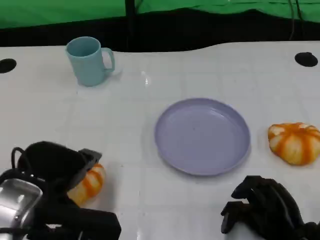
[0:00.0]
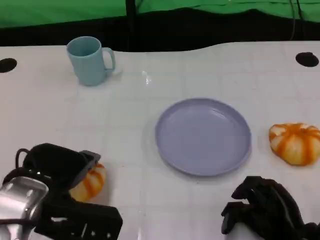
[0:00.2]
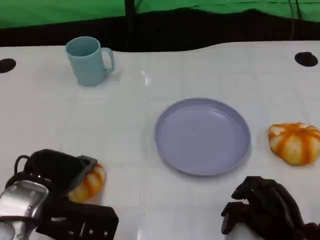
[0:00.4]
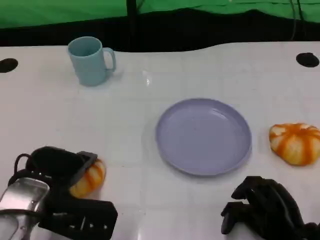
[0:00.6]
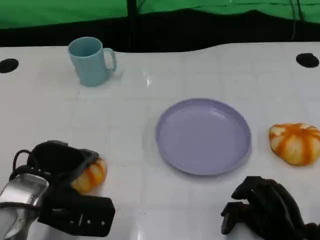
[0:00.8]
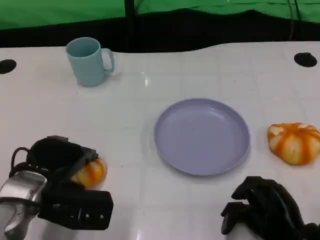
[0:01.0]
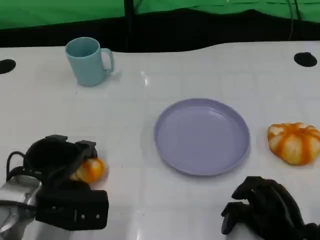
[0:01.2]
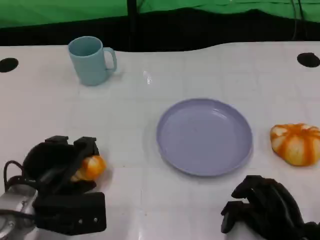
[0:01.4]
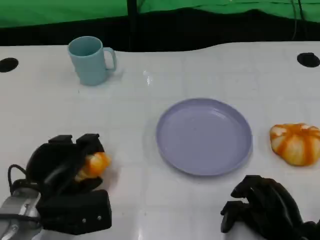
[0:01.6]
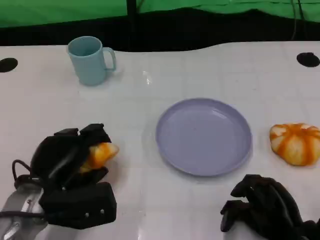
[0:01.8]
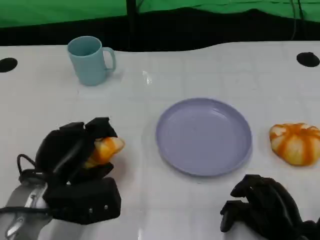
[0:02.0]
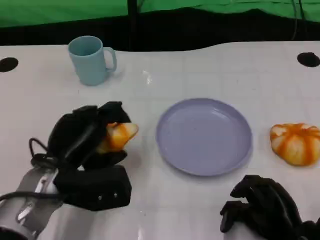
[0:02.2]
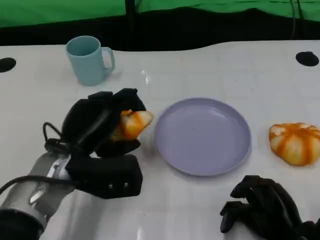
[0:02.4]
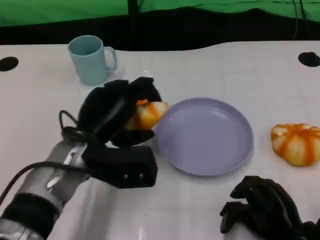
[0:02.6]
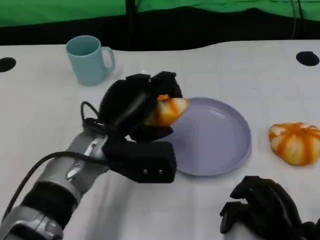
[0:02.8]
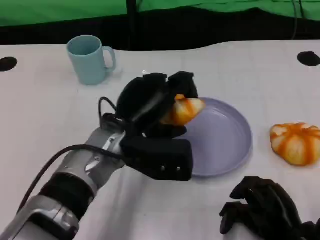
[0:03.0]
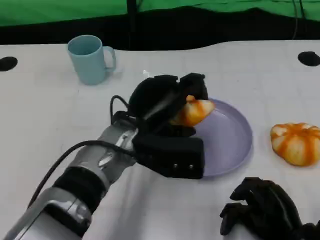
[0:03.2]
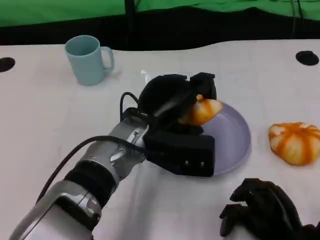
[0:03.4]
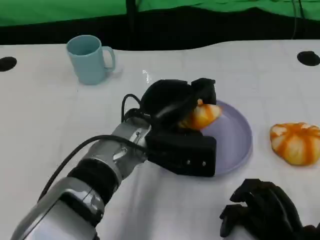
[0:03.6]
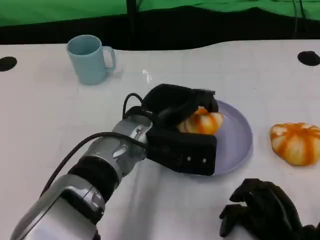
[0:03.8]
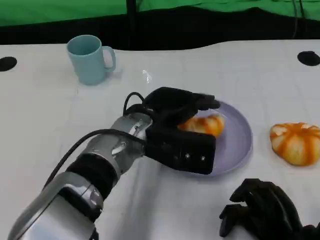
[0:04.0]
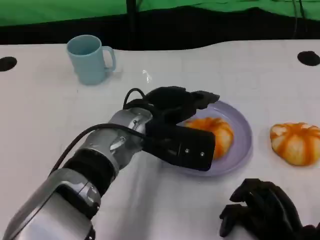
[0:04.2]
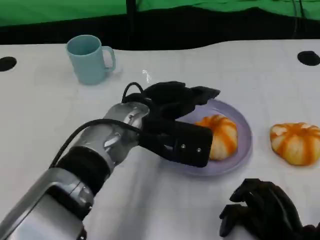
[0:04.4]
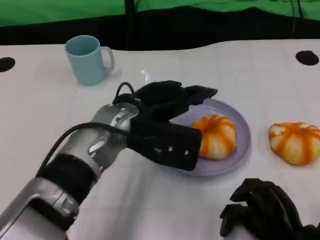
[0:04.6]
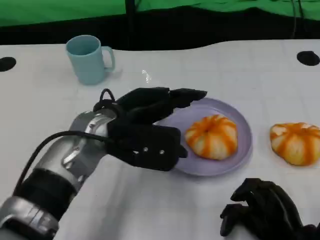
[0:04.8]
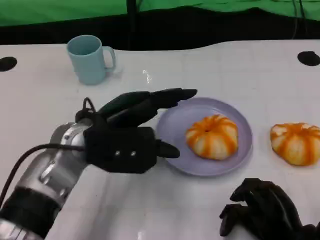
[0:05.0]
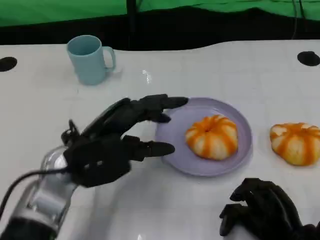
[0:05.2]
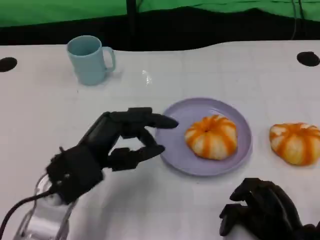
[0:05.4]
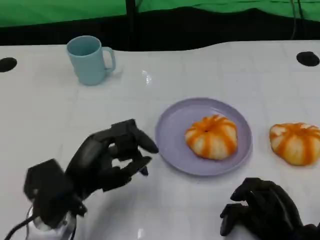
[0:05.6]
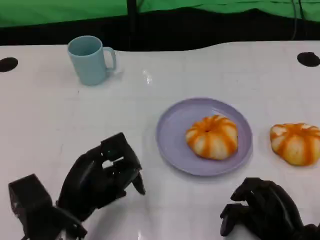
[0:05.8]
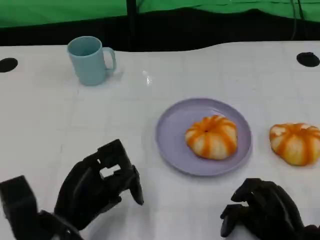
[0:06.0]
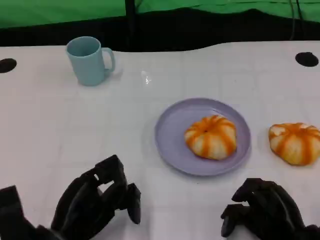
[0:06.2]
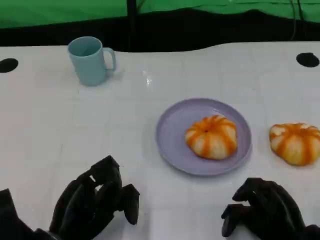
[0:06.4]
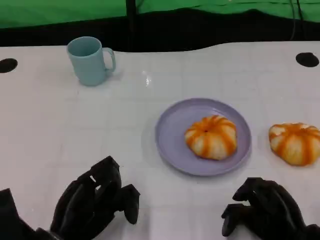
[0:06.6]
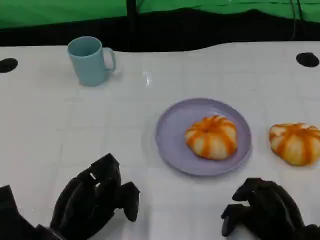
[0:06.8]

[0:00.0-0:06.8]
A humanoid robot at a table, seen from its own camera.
Task of the whole recording: Grasp the bread from the table and place it into the plate.
0:00.0 to 0:01.4: The left hand travels downward by approximately 10 cm.
0:01.4 to 0:02.8: The left hand goes some 15 cm to the right, upward and forward.
0:02.8 to 0:04.0: The left hand is displaced to the right by roughly 5 cm.
0:04.0 to 0:05.4: The left hand is displaced to the left and backward by about 15 cm.
0:05.4 to 0:06.8: The left hand travels downward and backward by roughly 10 cm.

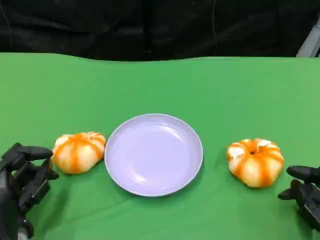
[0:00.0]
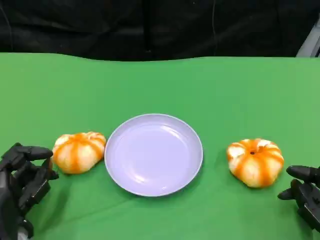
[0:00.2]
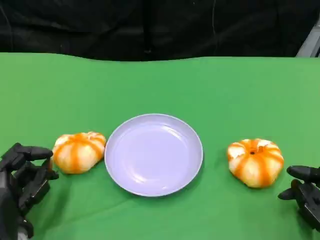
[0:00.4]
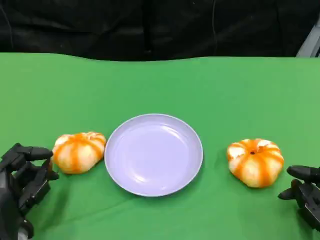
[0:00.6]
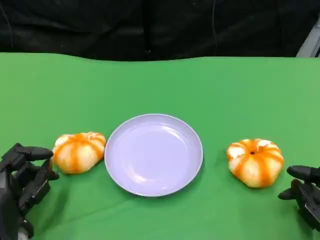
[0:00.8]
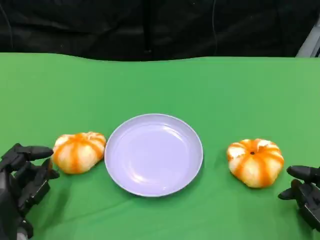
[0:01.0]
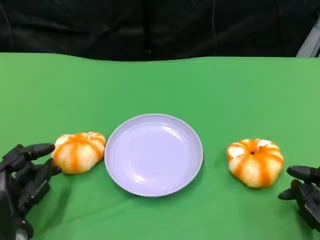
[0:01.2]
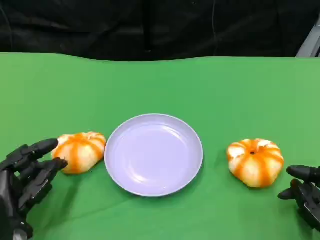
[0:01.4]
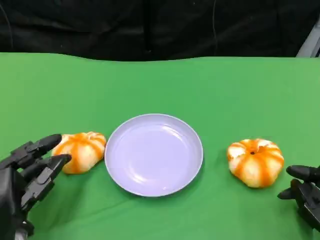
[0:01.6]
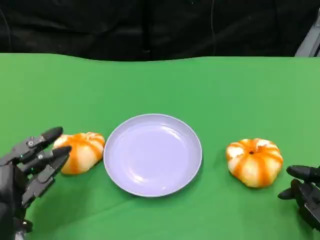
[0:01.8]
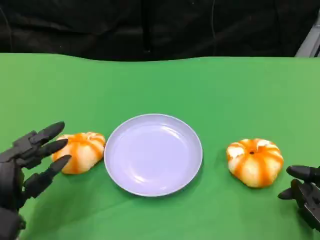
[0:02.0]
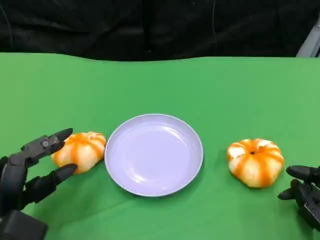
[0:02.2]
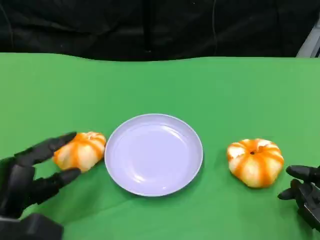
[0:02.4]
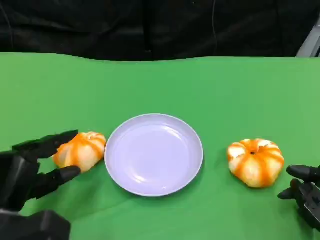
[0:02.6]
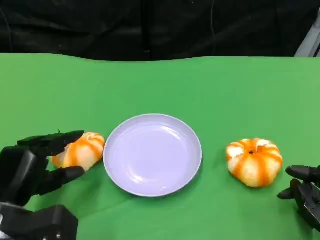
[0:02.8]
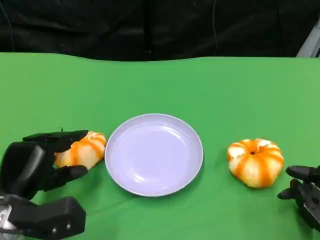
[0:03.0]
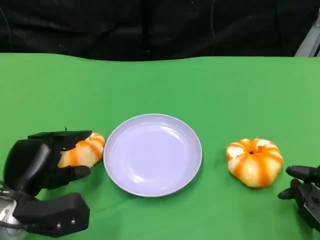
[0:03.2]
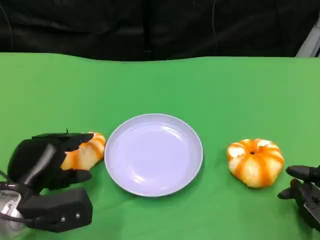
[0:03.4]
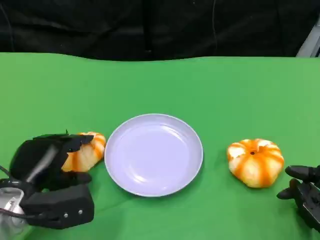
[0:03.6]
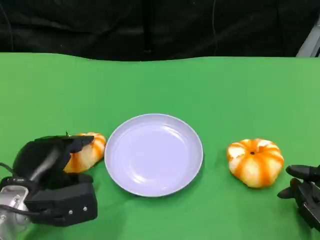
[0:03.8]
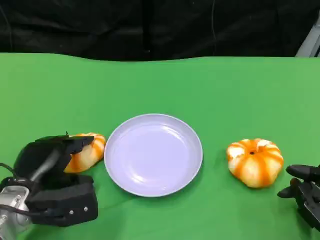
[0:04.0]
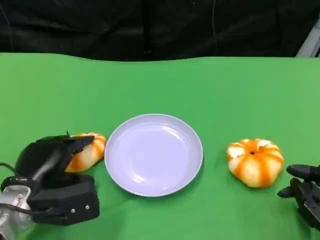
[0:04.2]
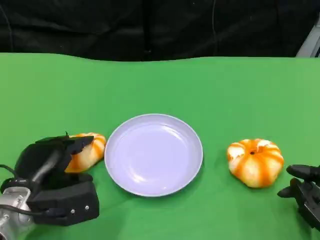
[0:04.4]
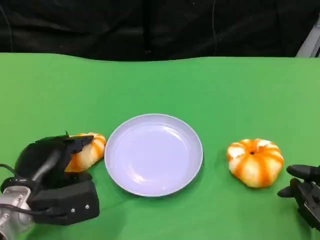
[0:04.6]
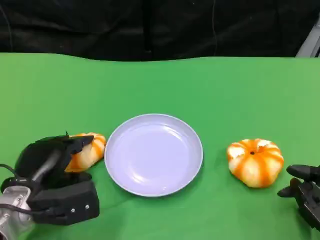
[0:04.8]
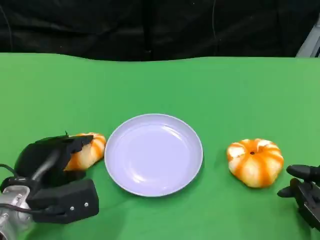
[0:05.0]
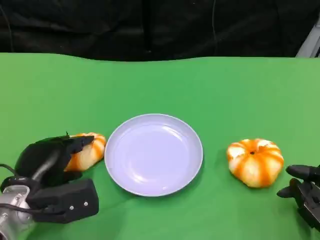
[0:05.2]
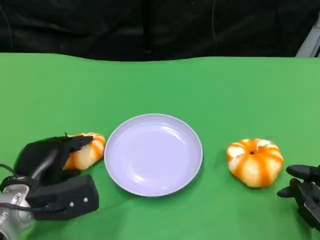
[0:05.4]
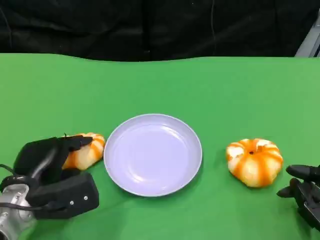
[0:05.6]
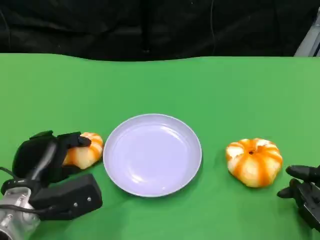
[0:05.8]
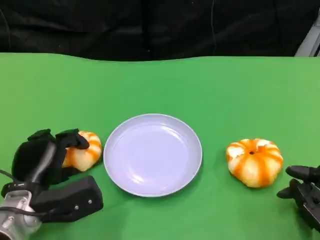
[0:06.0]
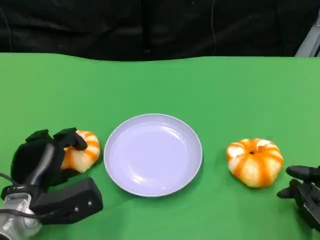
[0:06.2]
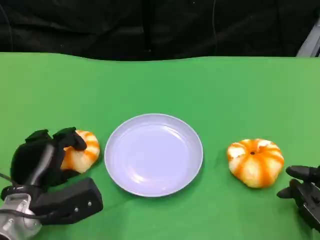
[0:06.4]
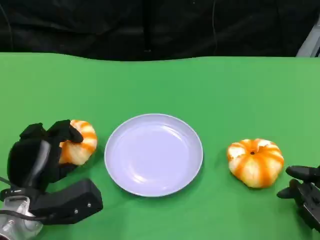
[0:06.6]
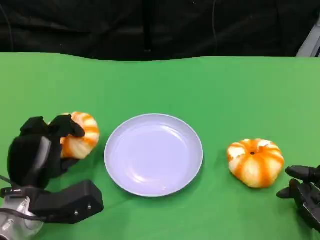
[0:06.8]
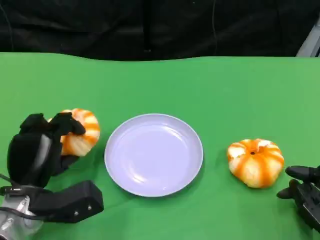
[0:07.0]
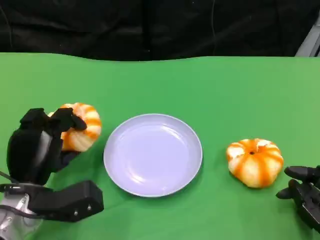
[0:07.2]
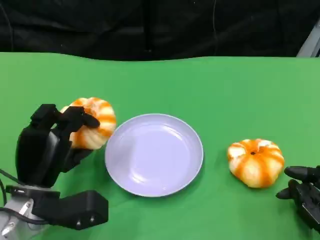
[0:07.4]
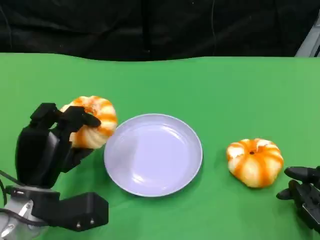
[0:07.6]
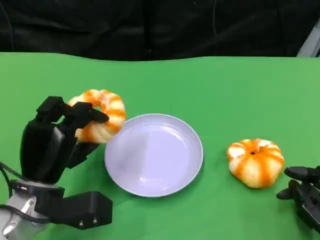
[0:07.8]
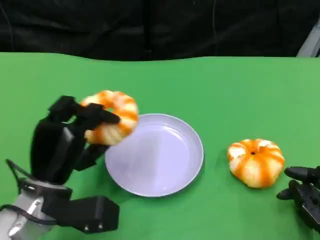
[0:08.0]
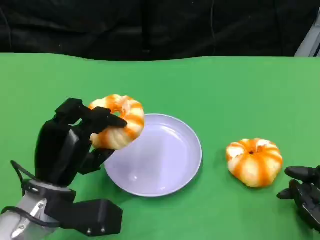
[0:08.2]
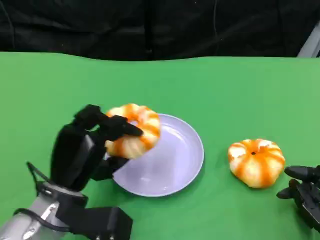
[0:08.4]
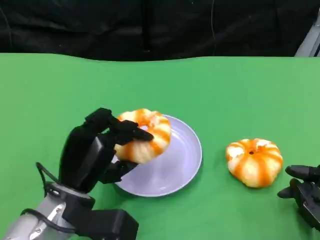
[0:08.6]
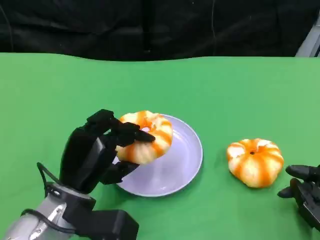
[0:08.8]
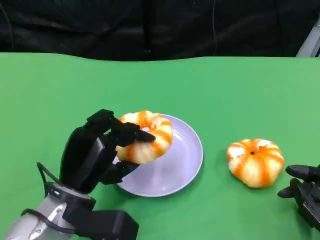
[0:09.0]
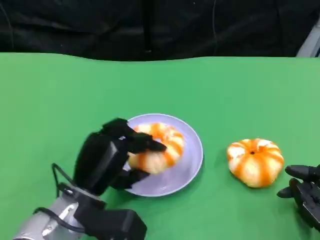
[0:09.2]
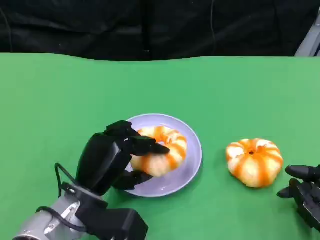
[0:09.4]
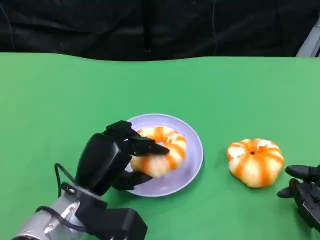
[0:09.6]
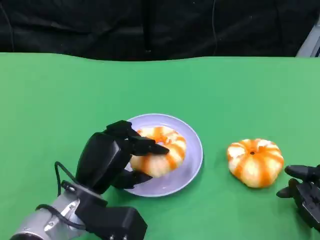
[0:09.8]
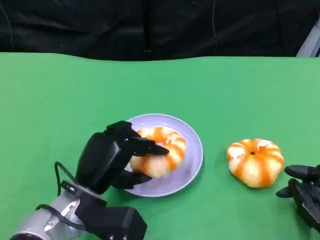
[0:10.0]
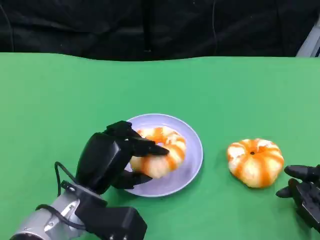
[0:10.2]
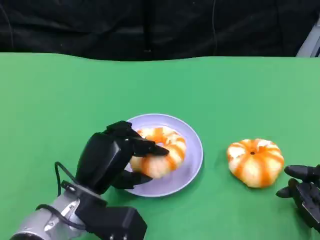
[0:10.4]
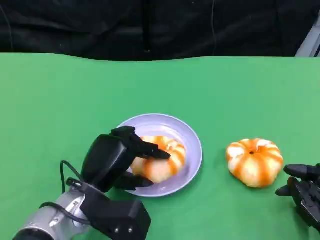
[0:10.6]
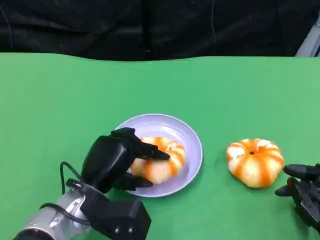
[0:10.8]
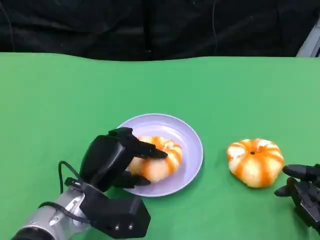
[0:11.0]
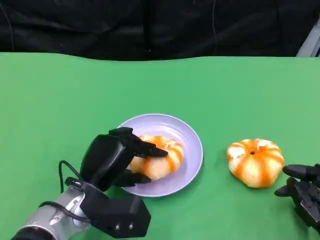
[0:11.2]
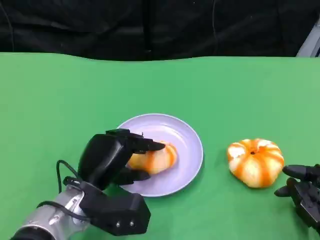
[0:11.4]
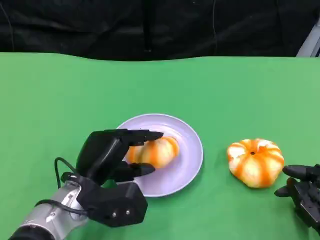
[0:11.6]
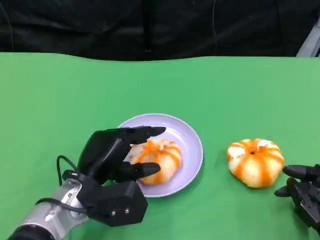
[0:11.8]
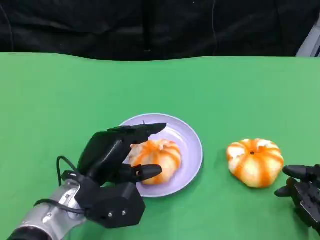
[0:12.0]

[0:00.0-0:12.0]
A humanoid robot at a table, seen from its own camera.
Task of the whole recording: Grasp the bread from the table and place it into the plate.
0:00.0 to 0:01.6: The hands stay close to where they were, moving slightly.
0:04.4 to 0:06.0: The hands stay close to where they were, moving slightly.
0:09.0 to 0:10.4: There are only small adjustments of the hands.
0:10.4 to 0:12.0: The hands make only small movements.

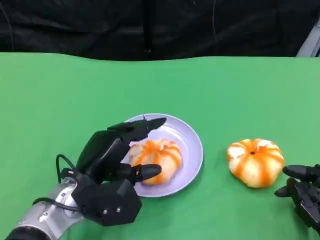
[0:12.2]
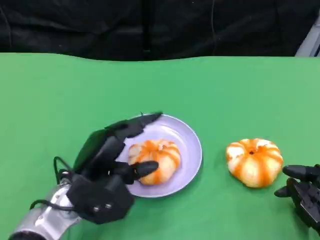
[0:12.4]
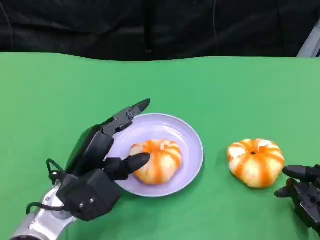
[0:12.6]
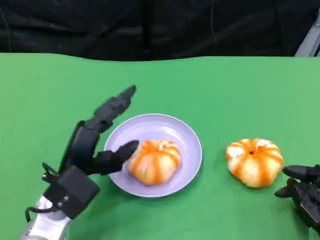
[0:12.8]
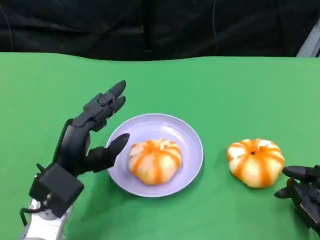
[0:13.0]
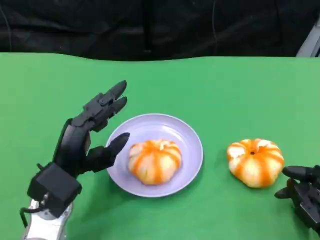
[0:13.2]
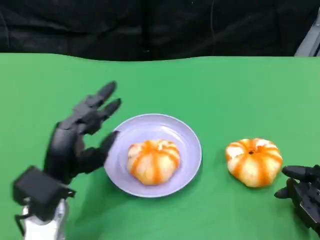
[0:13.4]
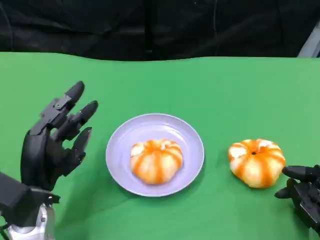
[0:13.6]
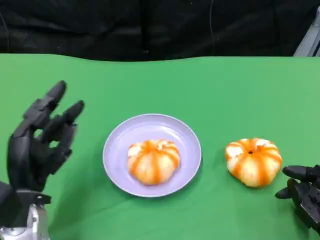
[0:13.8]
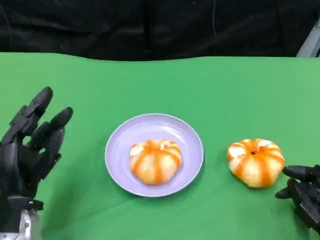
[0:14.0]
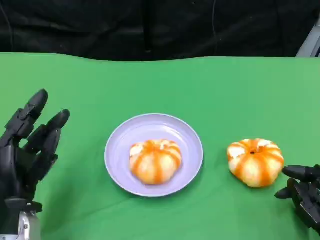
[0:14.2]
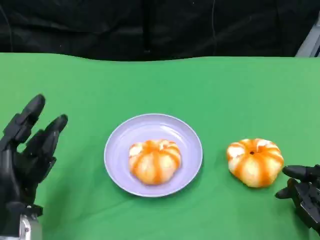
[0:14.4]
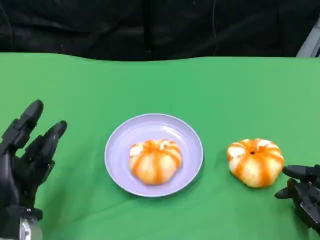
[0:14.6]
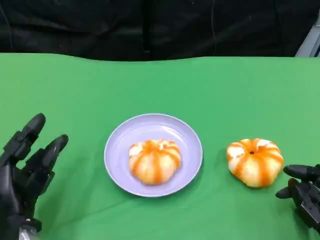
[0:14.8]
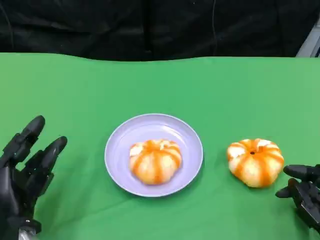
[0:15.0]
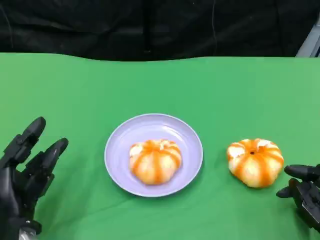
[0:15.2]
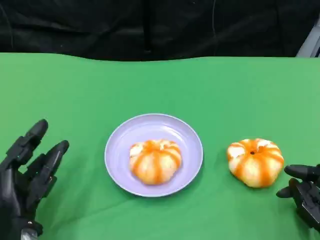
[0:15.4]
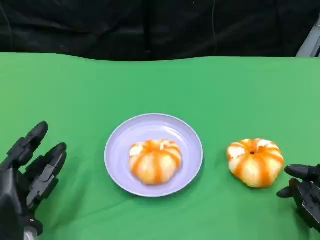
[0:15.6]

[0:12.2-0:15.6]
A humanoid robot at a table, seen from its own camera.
Task of the whole recording: Grasp the bread from the table and place it into the plate.
0:12.2 to 0:13.8: The left hand moves to the left, about 5 cm.
